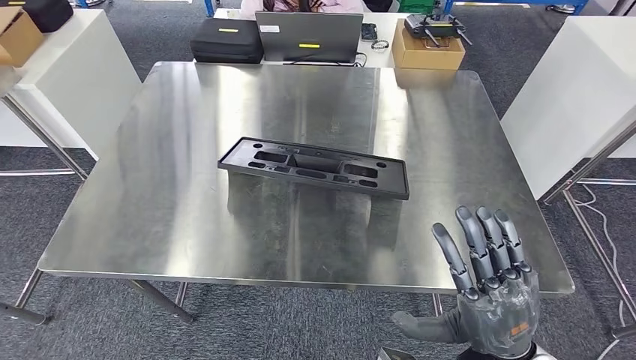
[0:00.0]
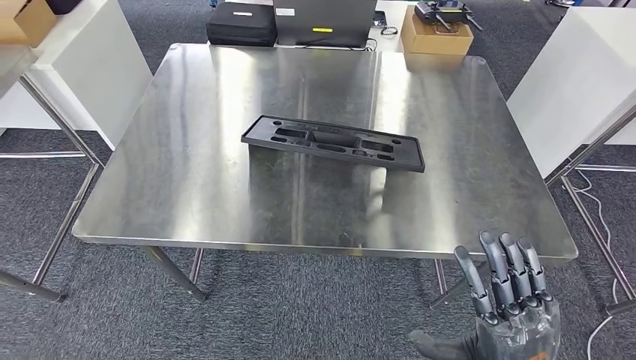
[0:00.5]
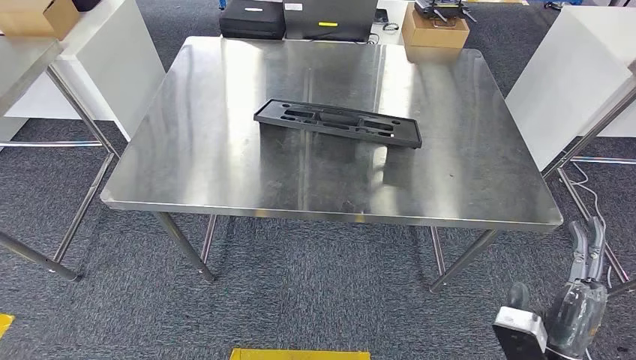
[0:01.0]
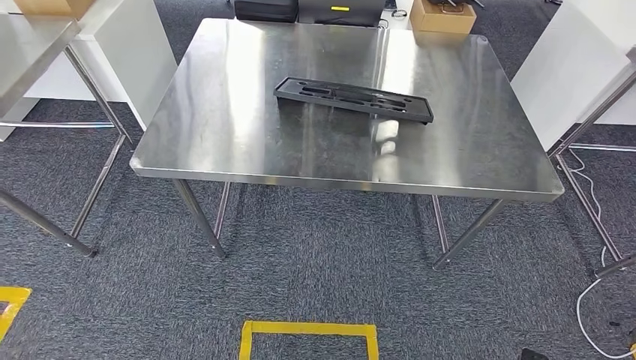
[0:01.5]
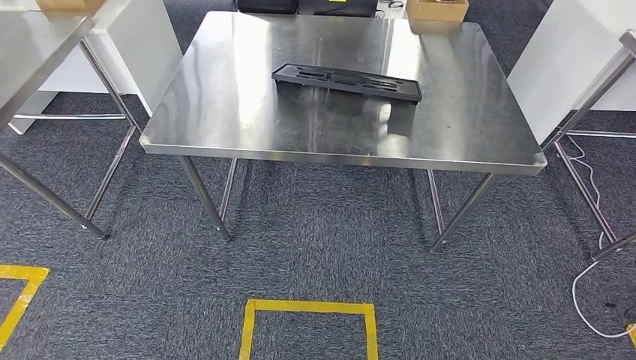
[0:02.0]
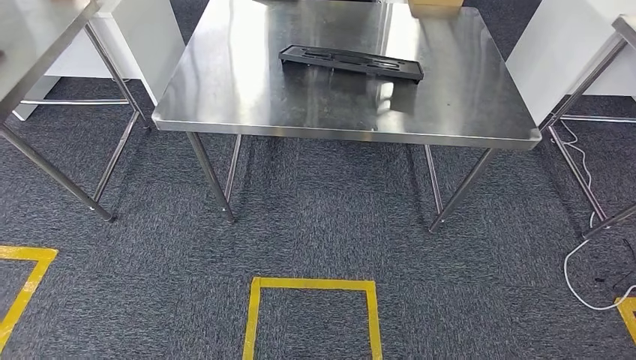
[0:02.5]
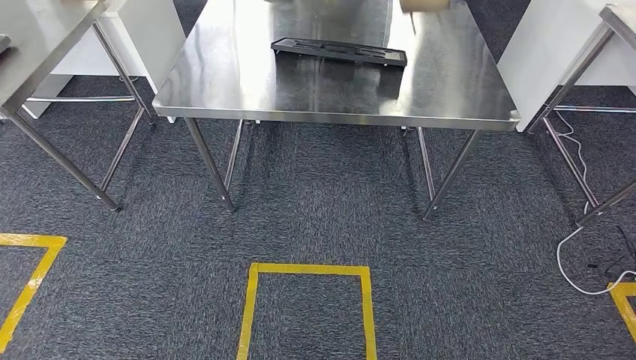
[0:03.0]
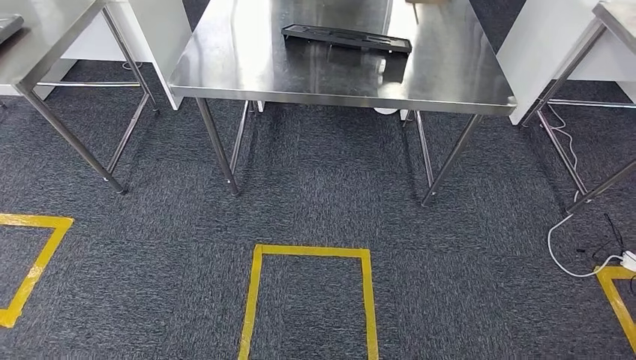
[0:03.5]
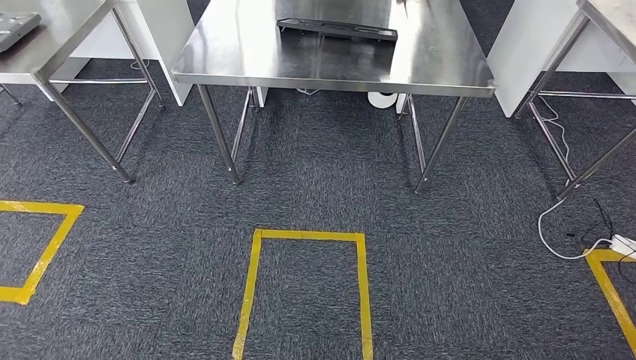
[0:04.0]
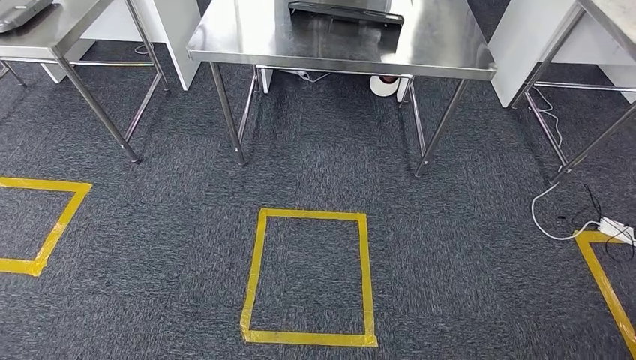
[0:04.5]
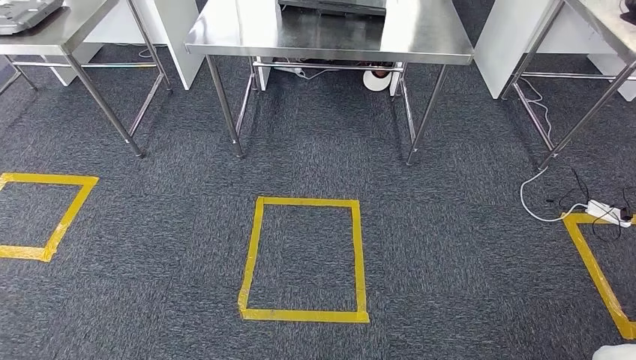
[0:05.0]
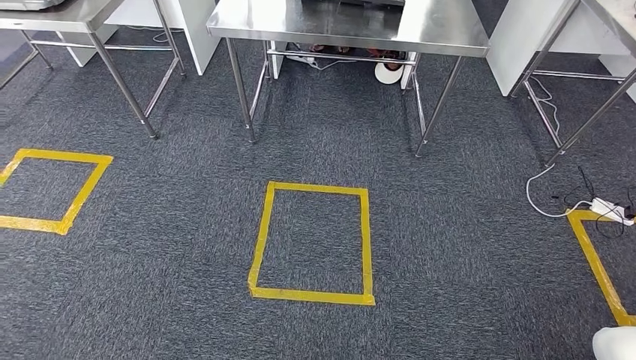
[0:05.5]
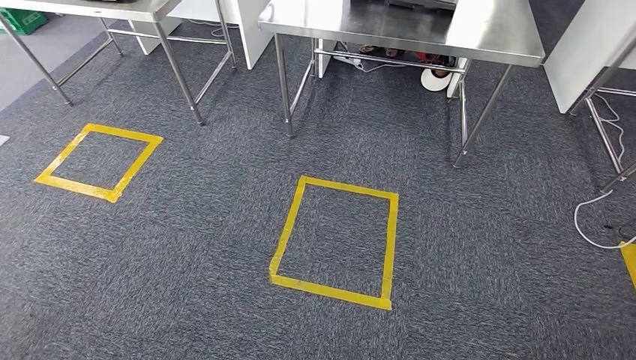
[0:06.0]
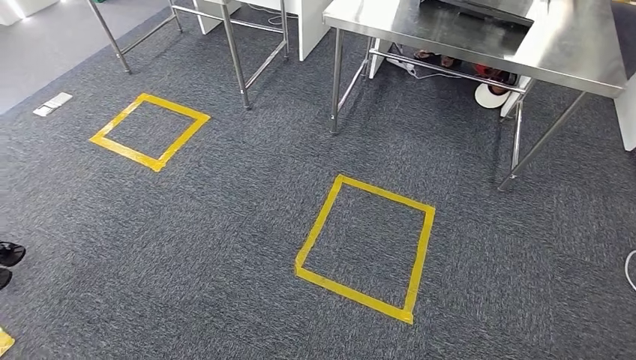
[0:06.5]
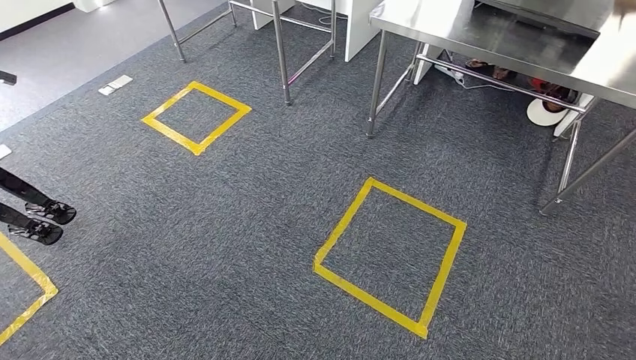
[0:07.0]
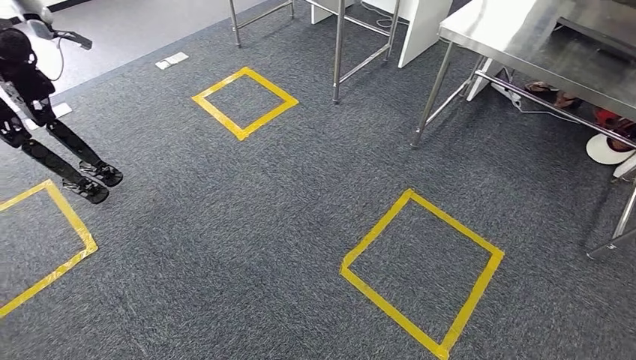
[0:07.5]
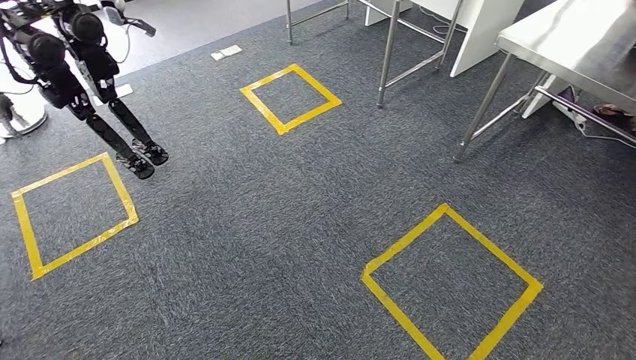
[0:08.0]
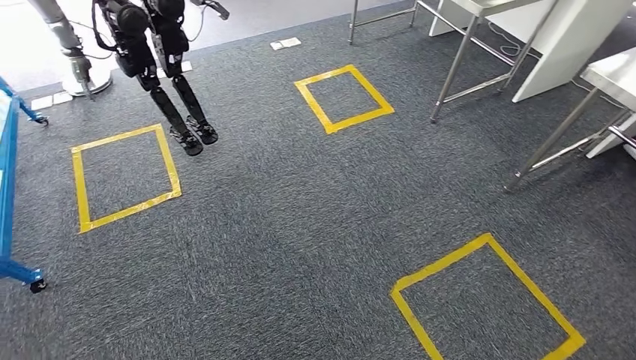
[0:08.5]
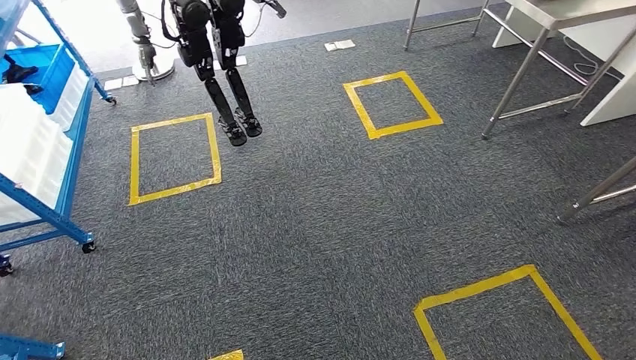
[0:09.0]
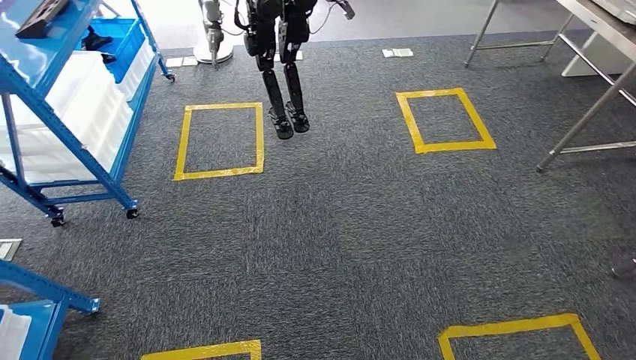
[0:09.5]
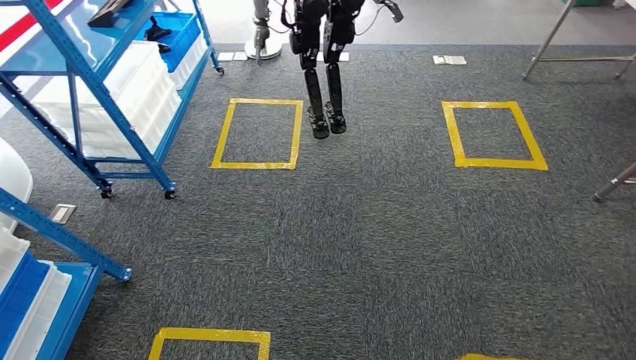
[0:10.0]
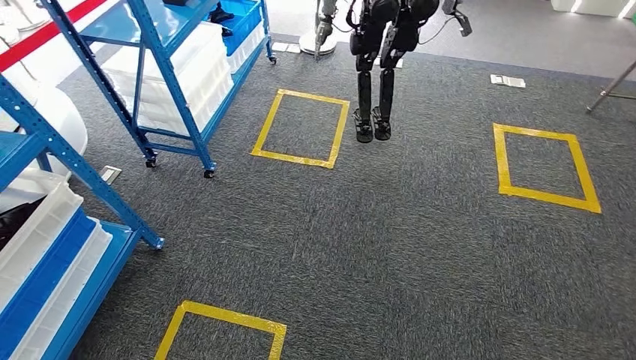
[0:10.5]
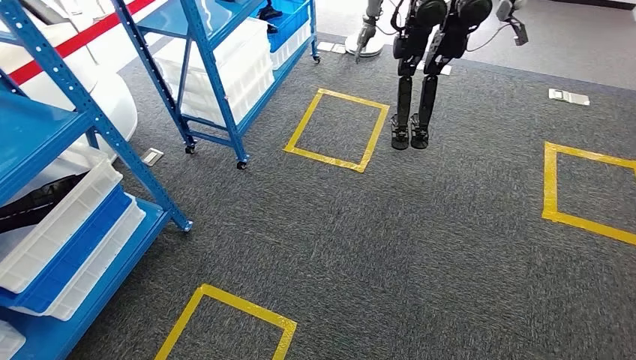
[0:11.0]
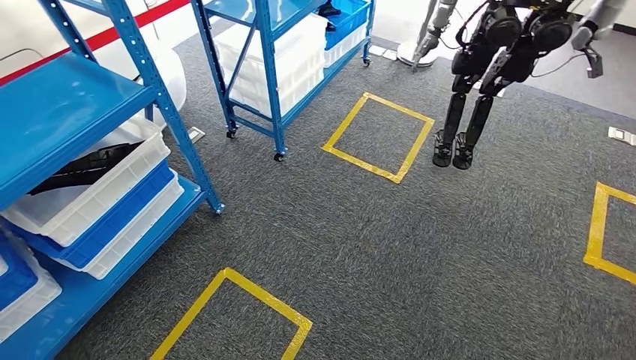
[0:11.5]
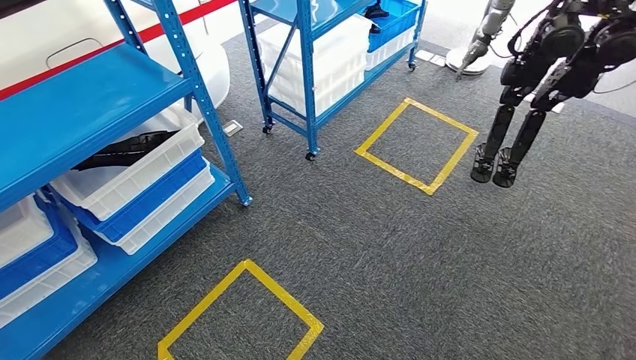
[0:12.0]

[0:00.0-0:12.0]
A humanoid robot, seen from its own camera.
Step, 0:00.0 to 0:04.0: Insert the large material into the corresponding slot on the workbench.

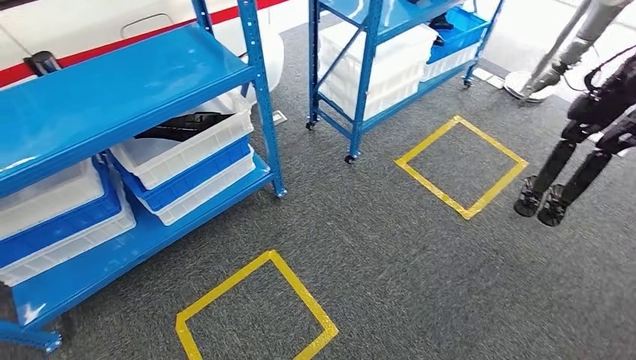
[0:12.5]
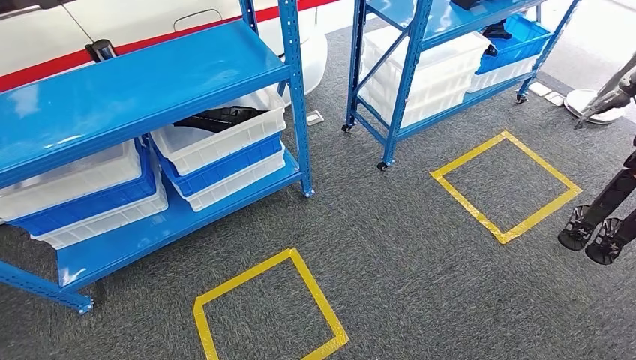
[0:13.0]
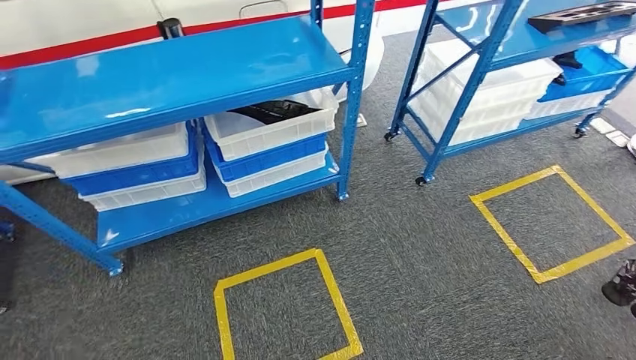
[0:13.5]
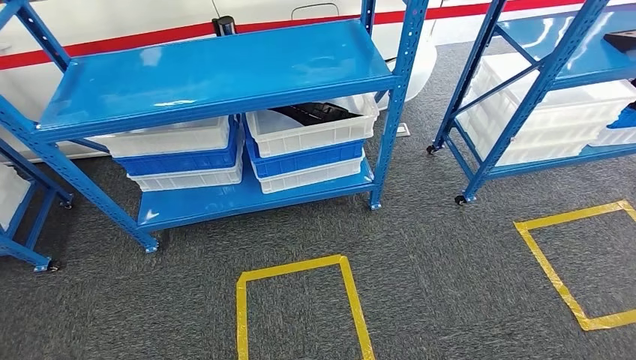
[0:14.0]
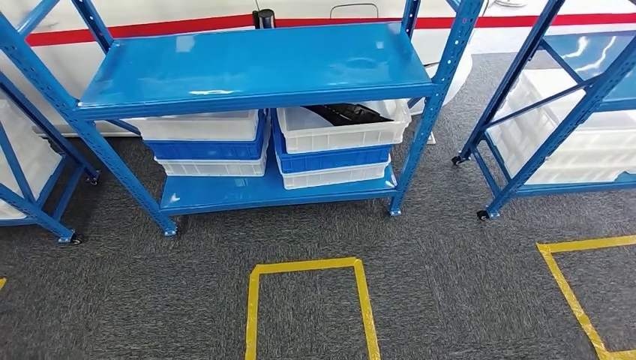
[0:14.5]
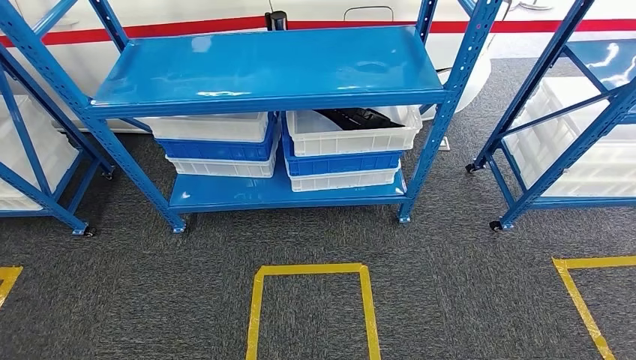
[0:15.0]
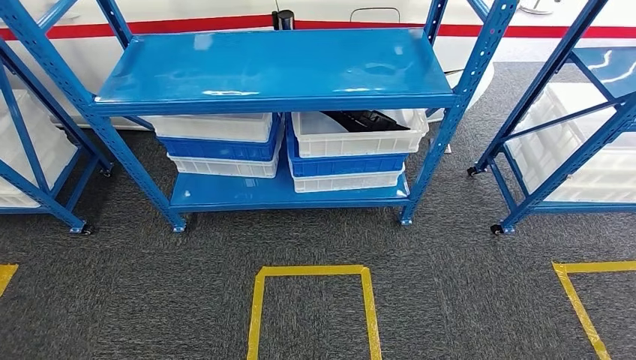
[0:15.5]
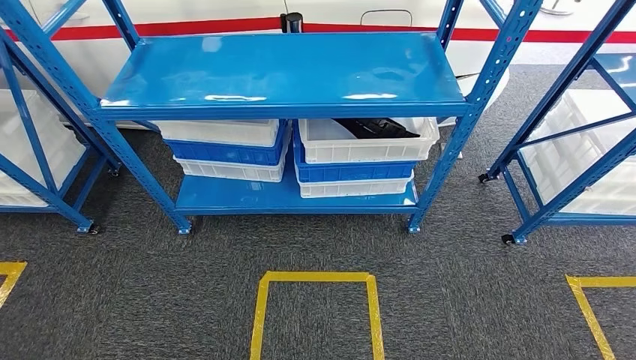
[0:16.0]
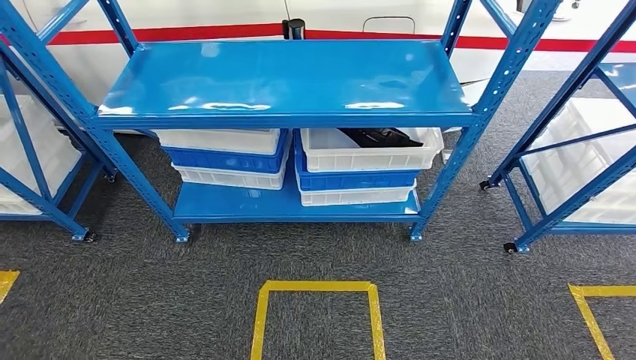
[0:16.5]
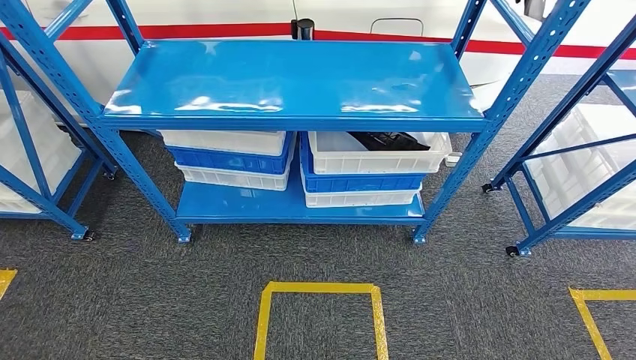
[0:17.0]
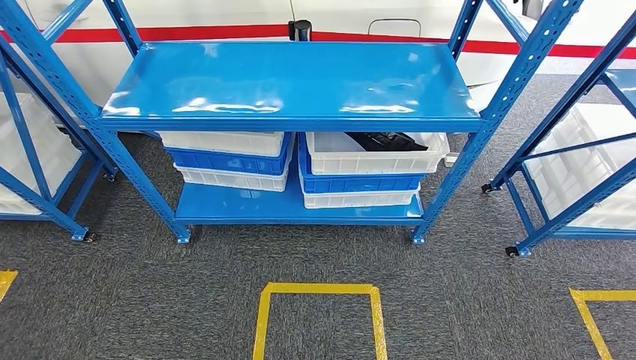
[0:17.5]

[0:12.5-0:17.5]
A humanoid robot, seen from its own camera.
Step, 0:12.5 to 0:17.5: Return to the initial position at the shelf.
